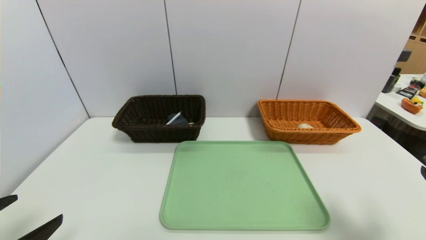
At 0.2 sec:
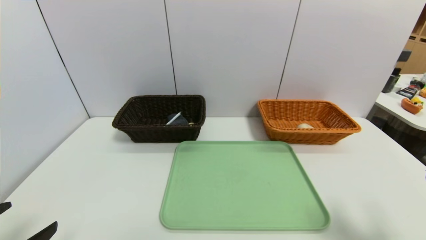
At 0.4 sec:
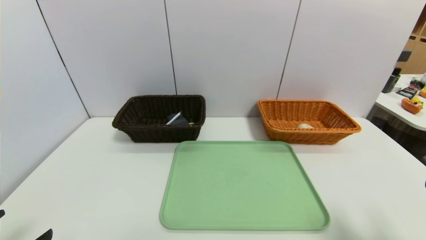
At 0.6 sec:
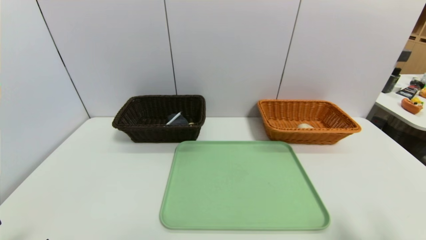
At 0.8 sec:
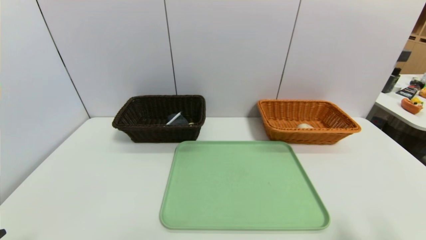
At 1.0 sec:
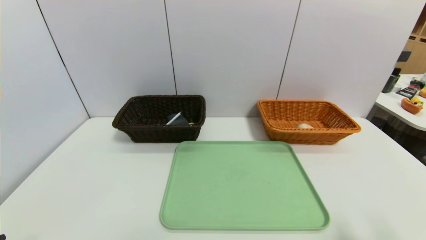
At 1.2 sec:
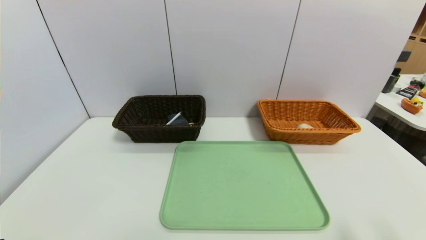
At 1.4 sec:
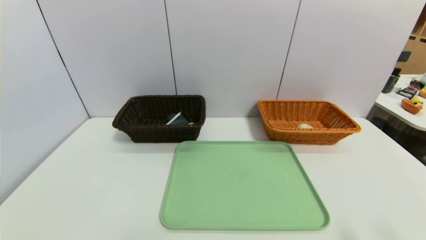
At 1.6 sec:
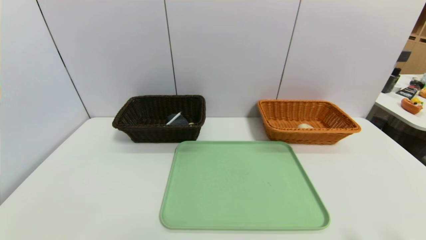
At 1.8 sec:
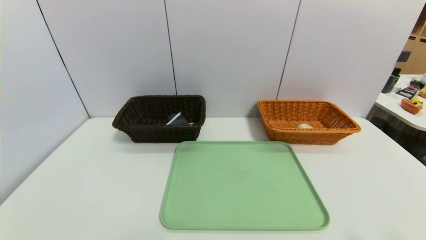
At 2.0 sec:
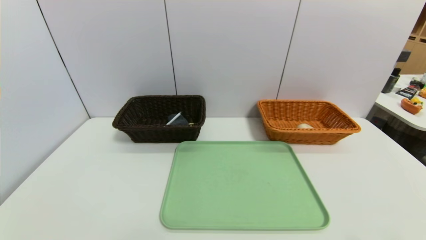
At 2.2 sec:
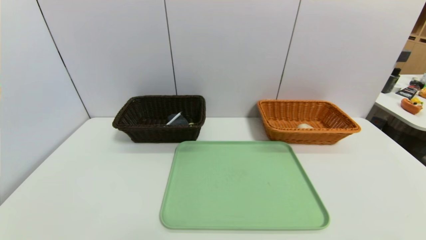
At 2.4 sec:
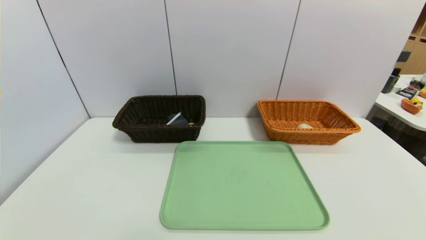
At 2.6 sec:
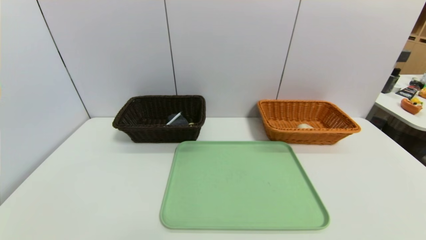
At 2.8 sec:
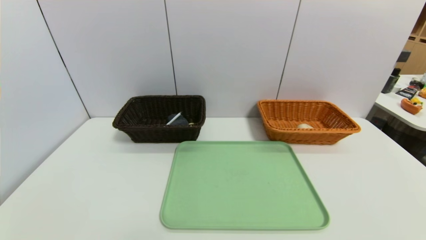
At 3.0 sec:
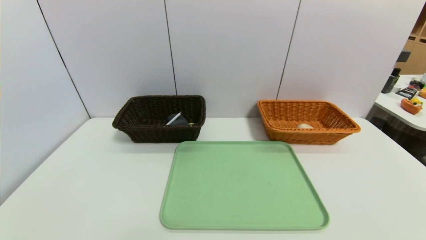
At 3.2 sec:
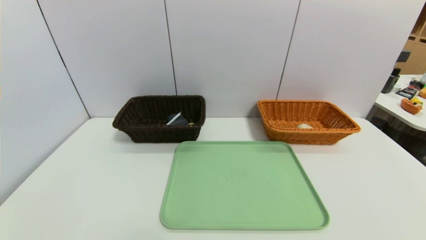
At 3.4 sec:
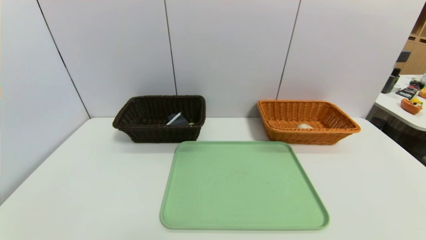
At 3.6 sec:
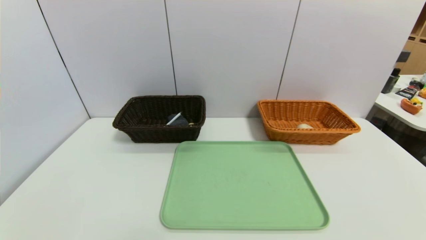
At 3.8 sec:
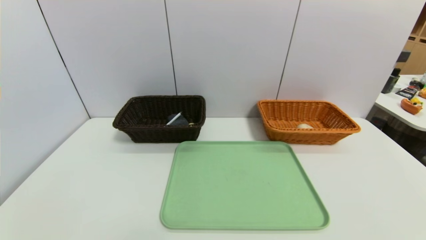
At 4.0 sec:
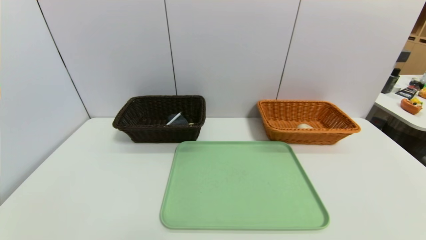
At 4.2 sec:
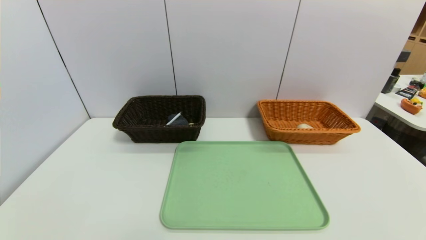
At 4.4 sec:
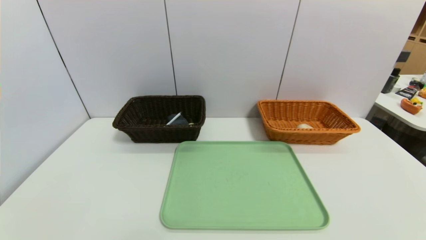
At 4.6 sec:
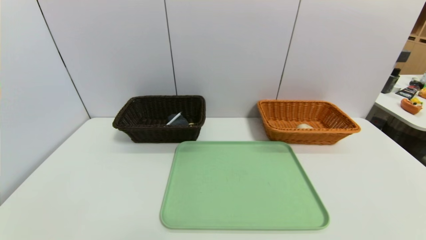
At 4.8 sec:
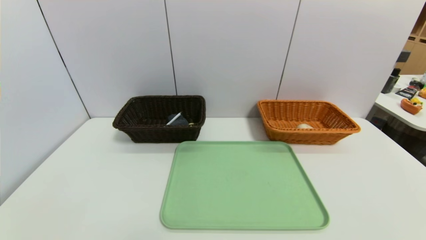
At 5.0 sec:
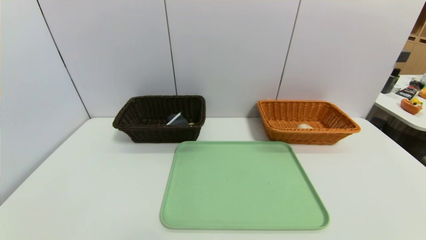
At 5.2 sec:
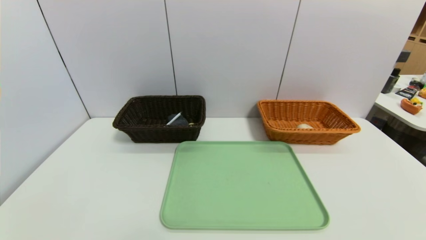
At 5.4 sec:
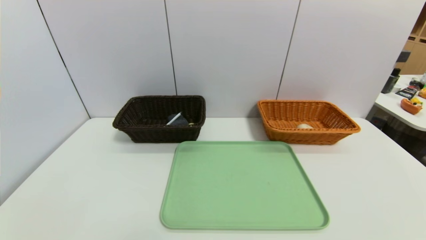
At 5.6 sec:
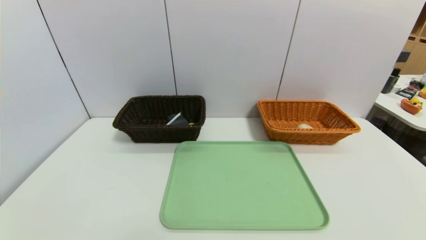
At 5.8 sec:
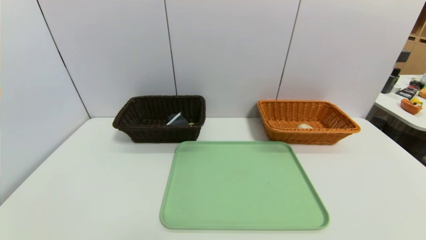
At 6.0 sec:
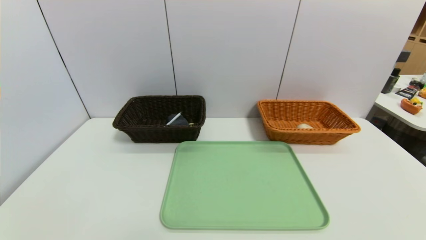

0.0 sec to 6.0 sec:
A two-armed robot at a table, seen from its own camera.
Task of the whole recording: place the food in the right basket with the right gripper, and place the non food items in the left basket with the left gripper.
0.0 sec to 1.6 sec: The grippers both shift backward and downward by approximately 10 cm.
4.4 sec to 6.0 sec: The two grippers keep their place.

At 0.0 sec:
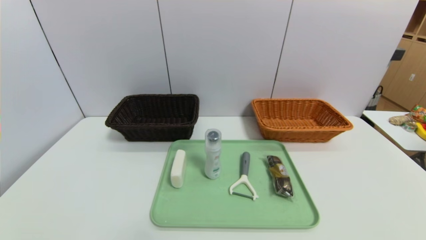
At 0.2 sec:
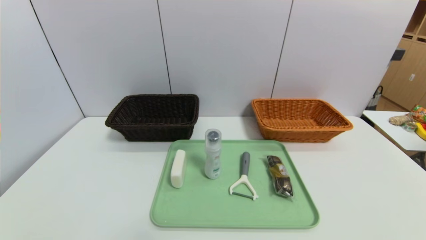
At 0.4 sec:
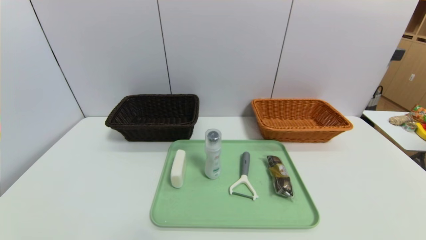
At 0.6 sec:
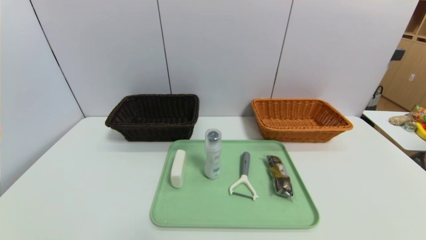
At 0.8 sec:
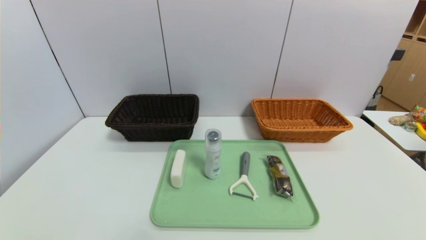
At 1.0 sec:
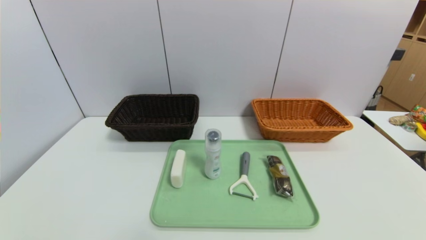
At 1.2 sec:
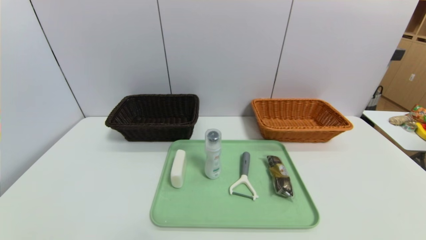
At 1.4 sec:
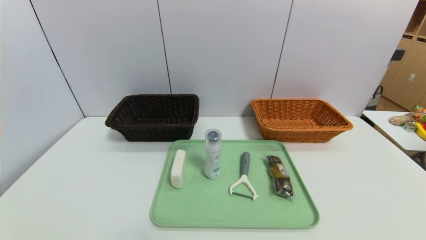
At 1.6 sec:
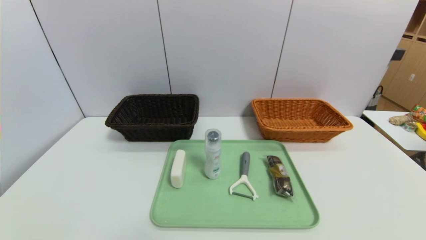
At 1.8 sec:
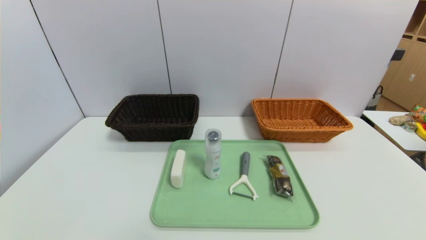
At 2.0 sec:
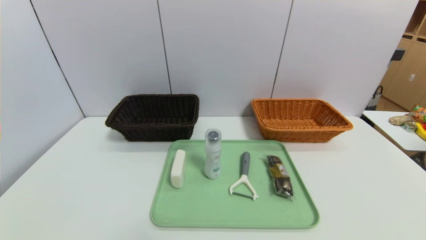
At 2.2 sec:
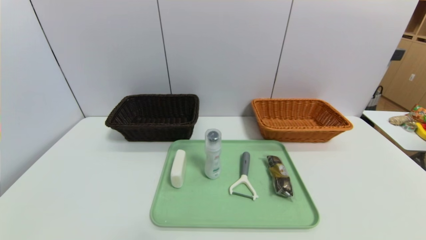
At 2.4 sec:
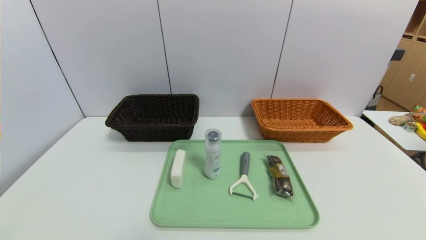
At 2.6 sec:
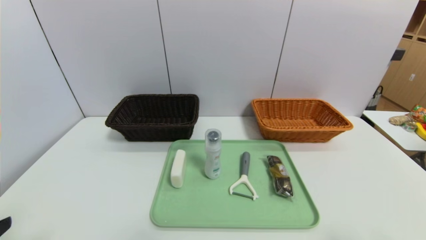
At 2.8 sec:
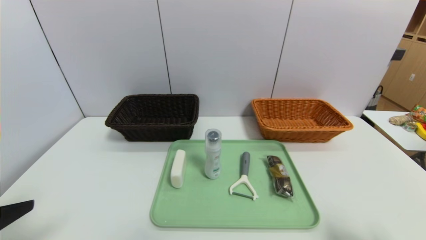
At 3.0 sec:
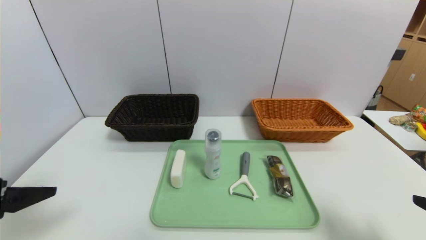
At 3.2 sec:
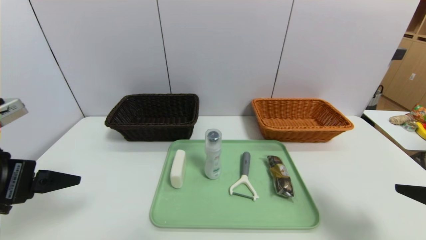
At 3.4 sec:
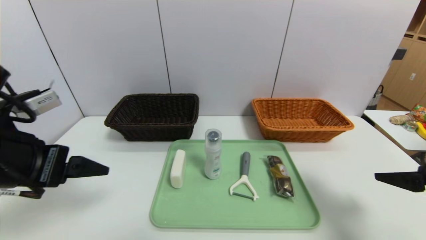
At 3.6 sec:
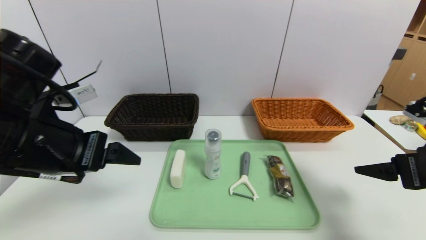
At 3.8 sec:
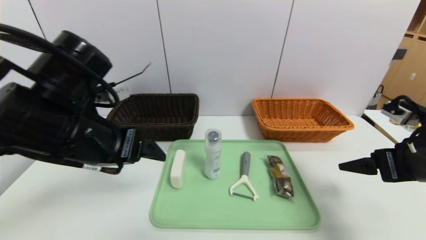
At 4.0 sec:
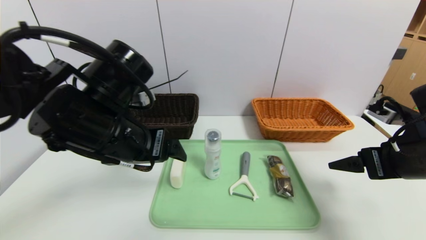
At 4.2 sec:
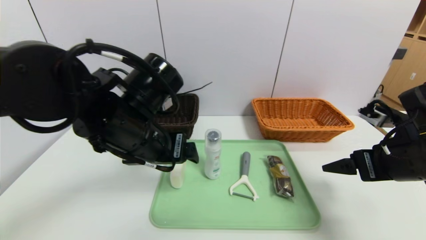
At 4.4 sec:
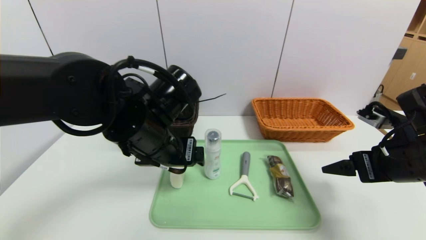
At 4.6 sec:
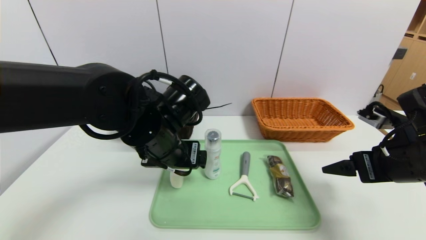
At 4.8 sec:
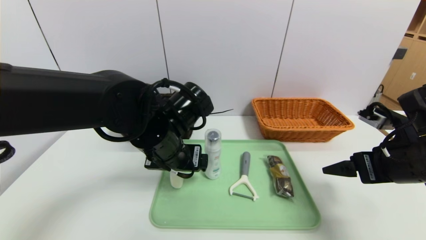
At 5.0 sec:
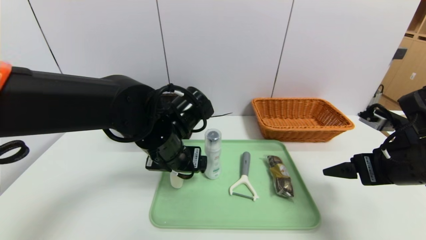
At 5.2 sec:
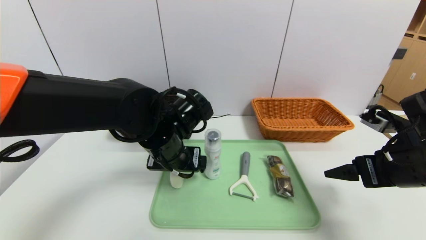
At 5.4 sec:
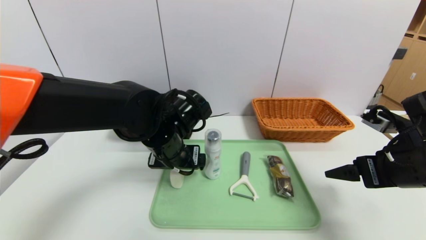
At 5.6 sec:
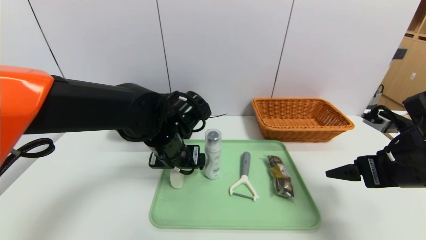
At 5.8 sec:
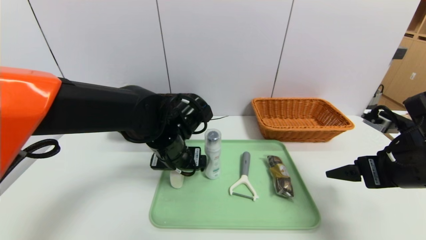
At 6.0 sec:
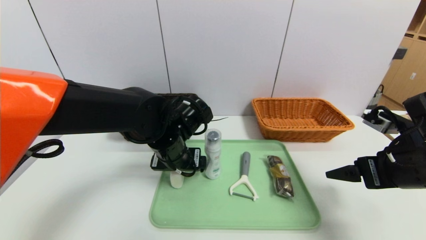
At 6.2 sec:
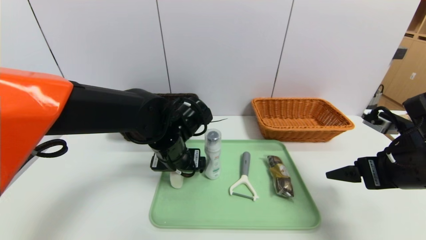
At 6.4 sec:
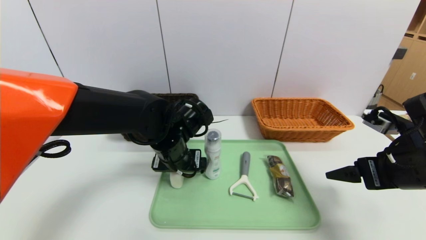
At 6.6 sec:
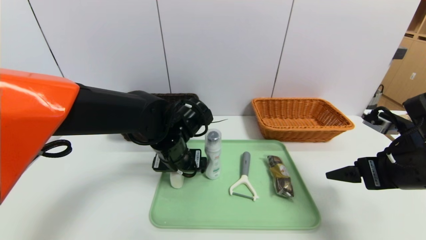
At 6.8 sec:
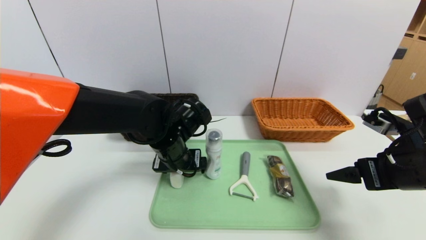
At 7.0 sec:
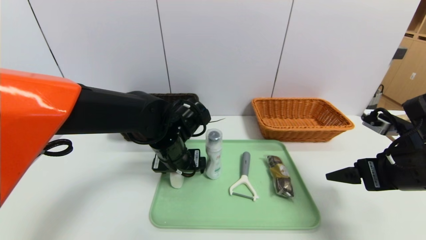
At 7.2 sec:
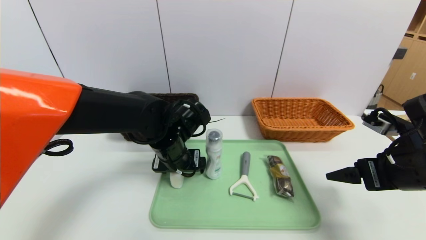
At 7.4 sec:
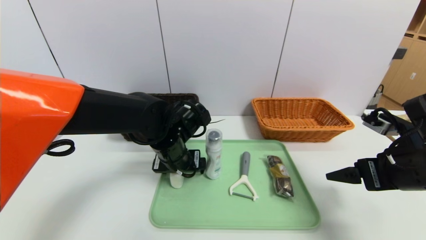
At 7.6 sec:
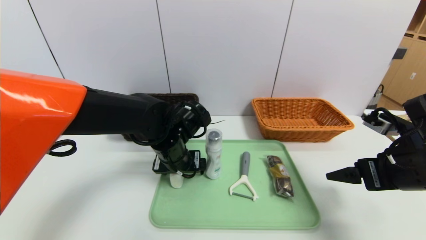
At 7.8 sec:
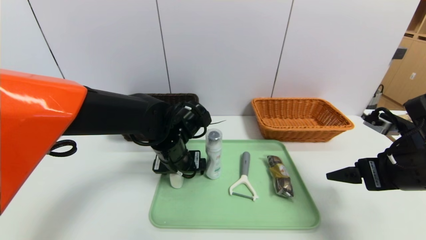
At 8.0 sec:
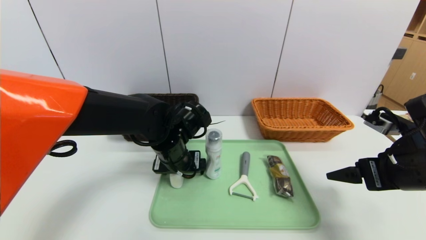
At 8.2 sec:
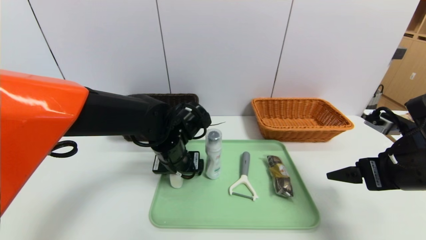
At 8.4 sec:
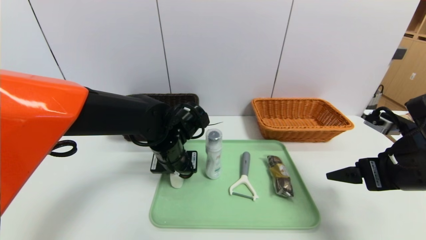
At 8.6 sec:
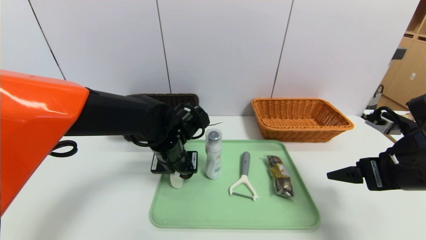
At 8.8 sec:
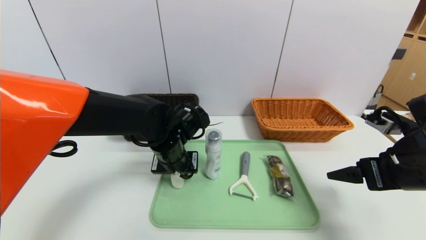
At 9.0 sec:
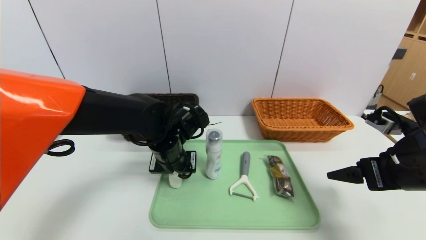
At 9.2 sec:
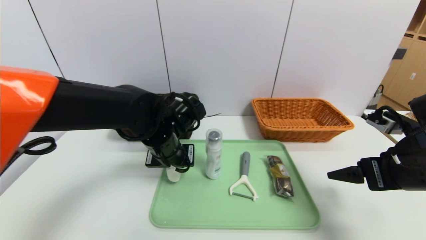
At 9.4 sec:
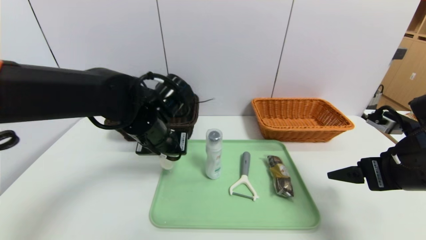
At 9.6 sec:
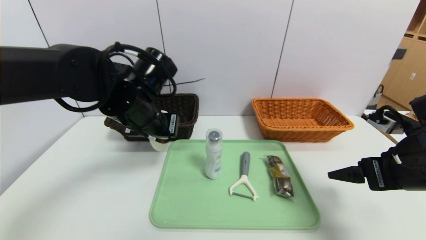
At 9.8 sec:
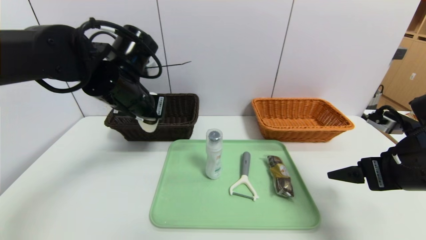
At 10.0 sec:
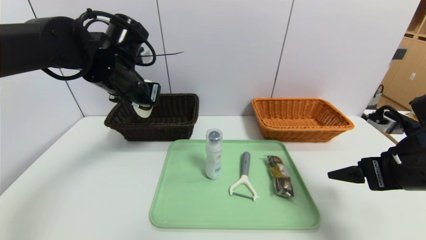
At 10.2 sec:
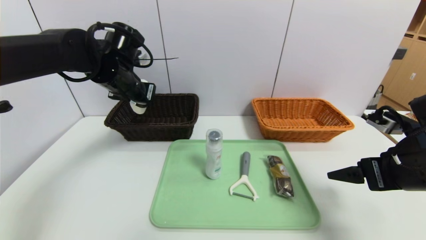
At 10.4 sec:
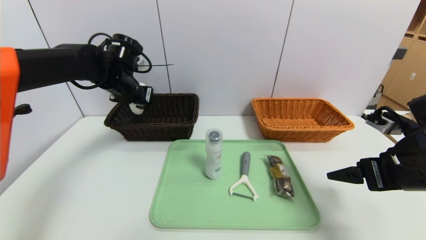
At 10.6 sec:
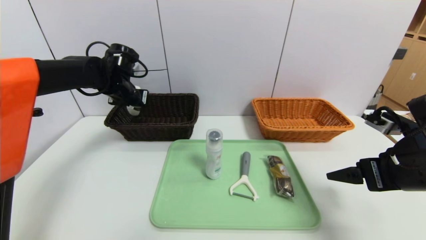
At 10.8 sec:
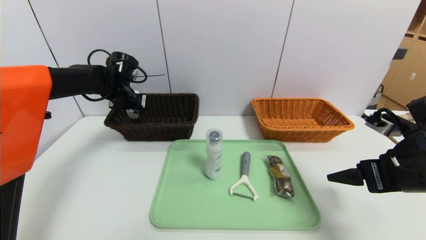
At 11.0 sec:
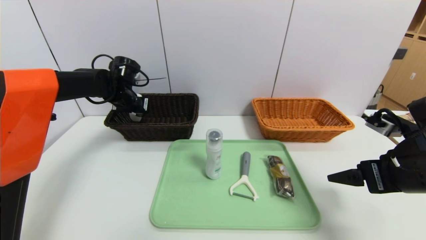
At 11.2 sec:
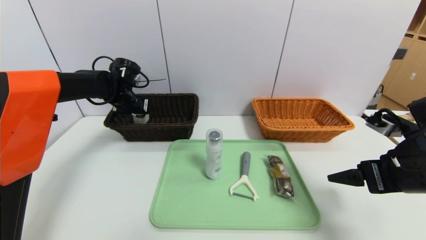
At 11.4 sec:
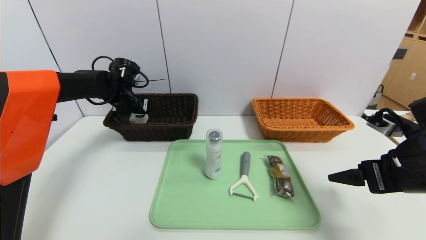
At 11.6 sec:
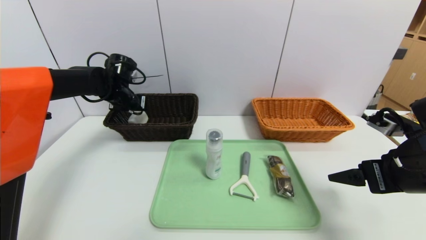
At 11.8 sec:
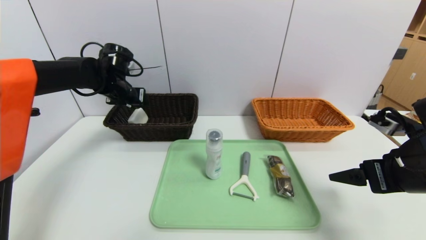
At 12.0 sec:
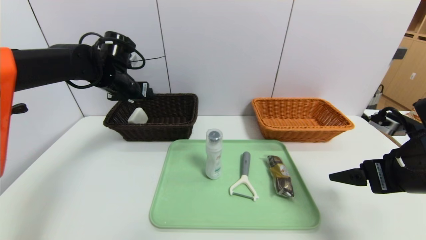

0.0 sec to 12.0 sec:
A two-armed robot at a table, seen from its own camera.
Task of the whole recording: place the food in the right basket with the right gripper, and place the non food items in the left basket with the left gripper.
Step, 0.0 sec to 11.6 sec: Grasp the soap and put it in the left basket.
0.0 sec to 1.6 sec: Both grippers stay about where they are.
1.6 sec to 3.0 sec: Both grippers travel together upward and forward, some 20 cm.
3.0 sec to 4.4 sec: The left gripper travels to the right and forward by approximately 25 cm, while the right gripper shifts roughly 15 cm forward.
4.4 sec to 6.0 sec: The left gripper shifts about 10 cm downward and forward.
6.0 sec to 7.6 sec: There are only small adjustments of the grippers.
7.6 sec to 9.0 sec: The left gripper closes its fingers.
9.0 sec to 10.4 sec: The left gripper shifts some 20 cm to the left, forward and upward.
10.4 sec to 12.0 sec: The left gripper opens its fingers.
